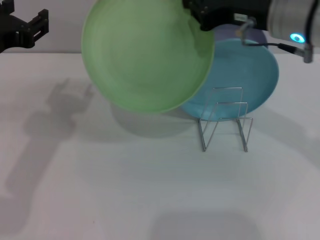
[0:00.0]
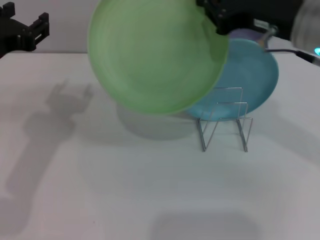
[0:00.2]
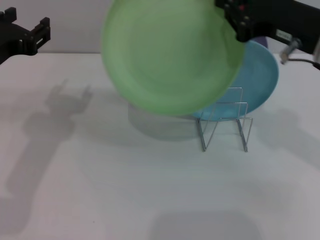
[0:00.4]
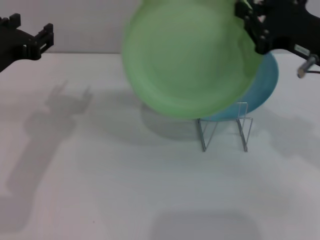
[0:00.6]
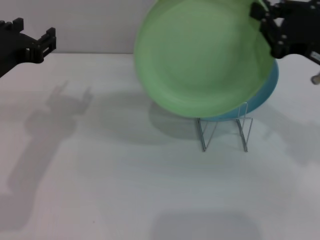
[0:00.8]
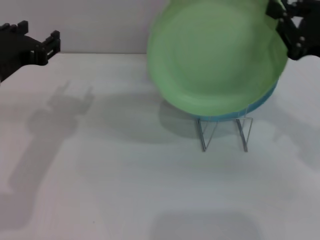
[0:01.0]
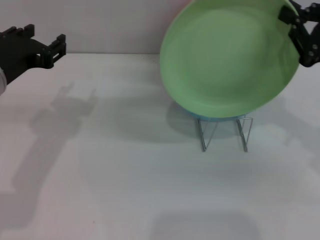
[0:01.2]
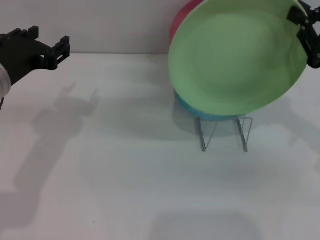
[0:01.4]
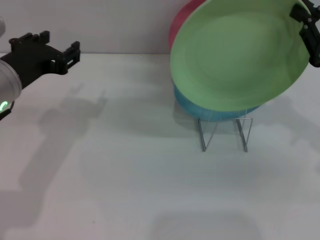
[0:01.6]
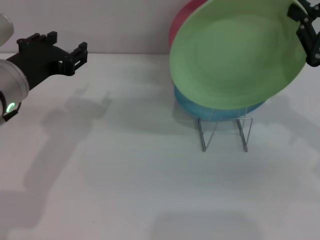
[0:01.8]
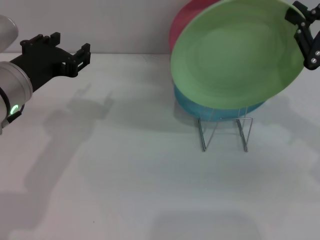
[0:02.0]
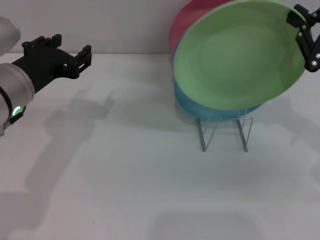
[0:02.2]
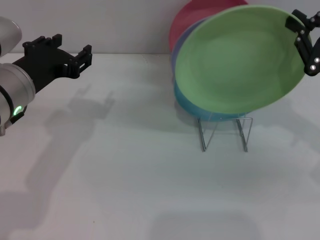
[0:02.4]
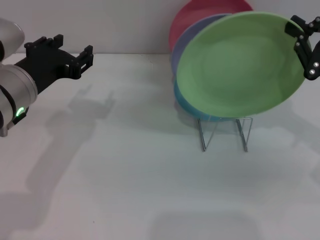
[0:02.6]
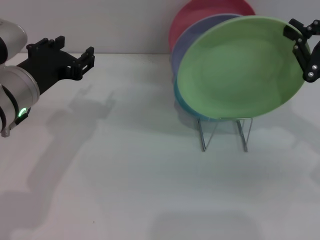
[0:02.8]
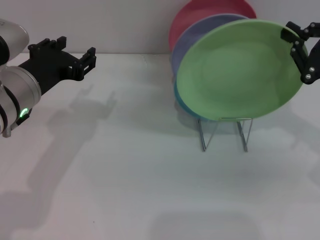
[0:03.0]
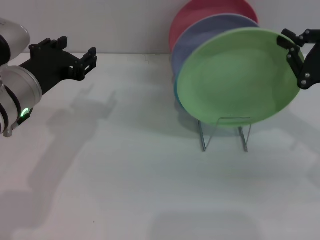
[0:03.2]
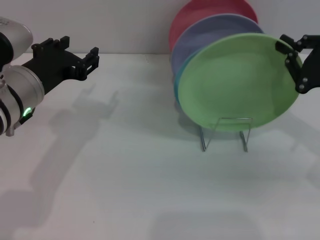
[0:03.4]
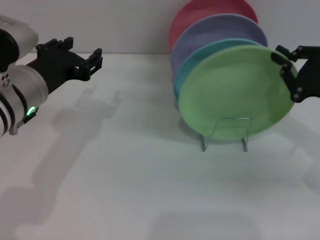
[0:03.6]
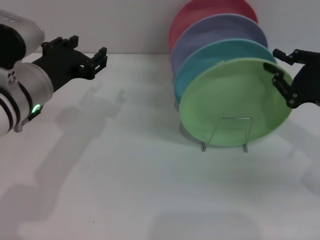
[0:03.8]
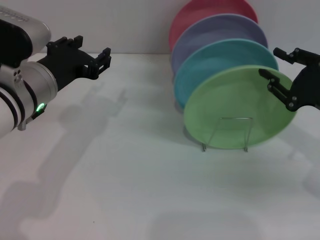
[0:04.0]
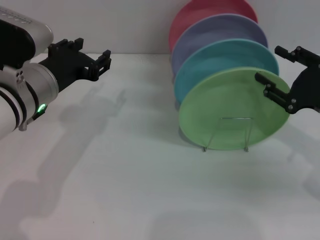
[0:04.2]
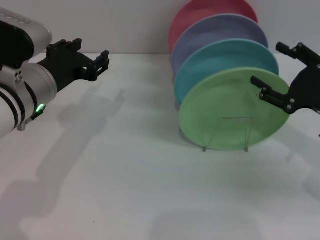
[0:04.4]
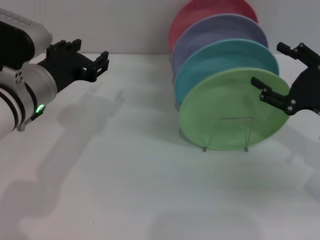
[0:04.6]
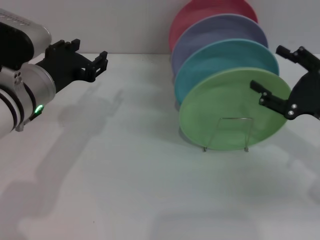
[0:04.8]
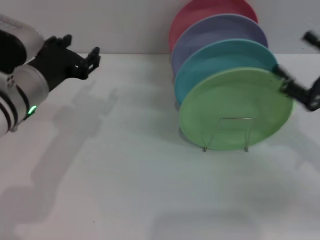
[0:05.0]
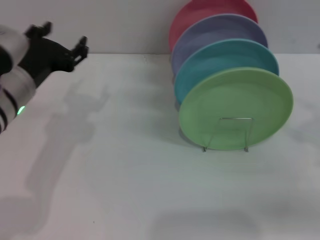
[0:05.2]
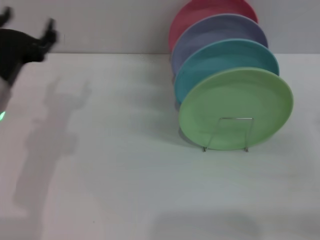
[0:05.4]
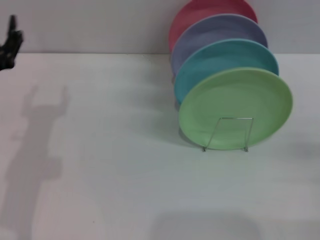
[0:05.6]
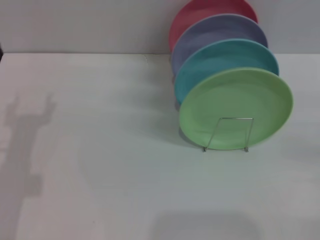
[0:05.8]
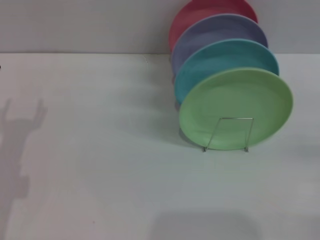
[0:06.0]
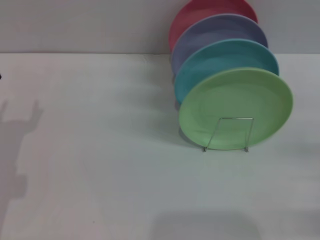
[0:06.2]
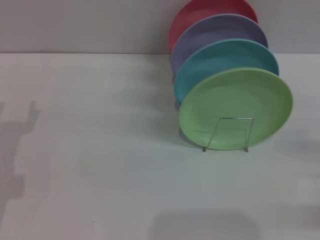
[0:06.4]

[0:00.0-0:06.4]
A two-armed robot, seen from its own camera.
Task of the whole recording: Grip the plate with one hand, pass it to the other, then set it on the shelf.
Step, 0:00.0 to 0:04.8: Place the plate on the shelf with the right gripper.
0:00.0 to 0:01.6: The right gripper shifts roughly 15 cm to the right and downward. Meanwhile the left gripper changes place by some 5 cm.
0:01.6 to 0:03.2: There are only small adjustments of the grippers.
0:03.2 to 0:04.8: The right gripper opens up.
0:04.8 to 0:06.4: The left gripper heads to the left, downward and backward, covering some 15 cm. The right gripper is displaced to the right, backward and downward by roughly 10 cm.
